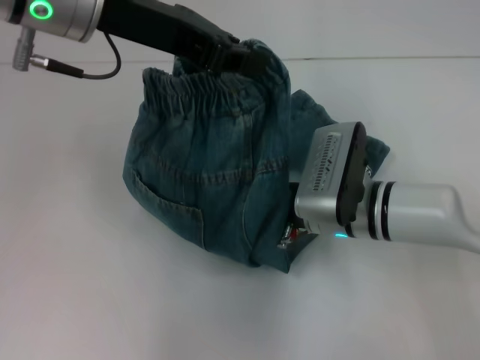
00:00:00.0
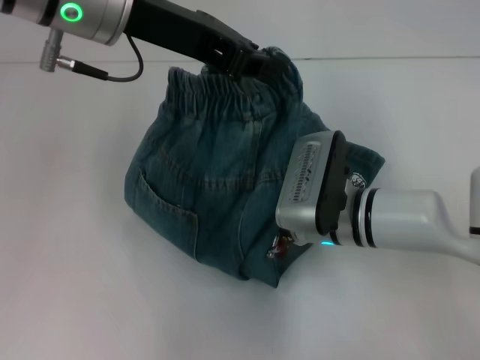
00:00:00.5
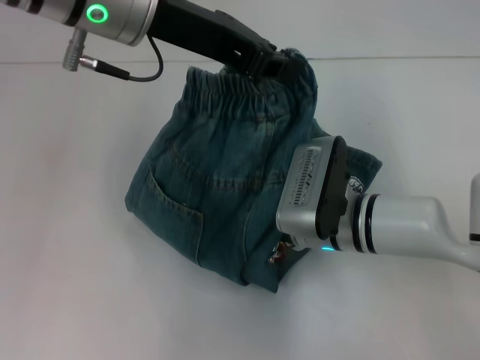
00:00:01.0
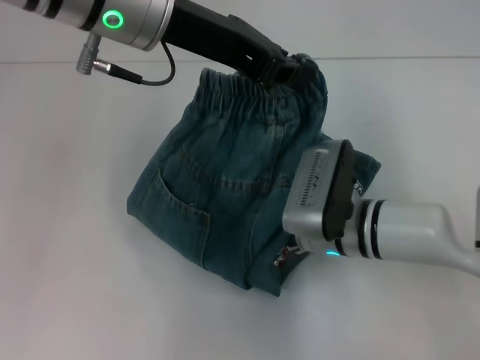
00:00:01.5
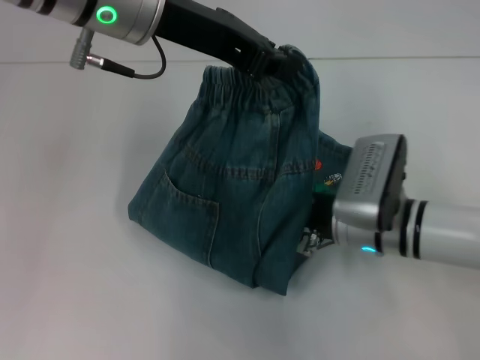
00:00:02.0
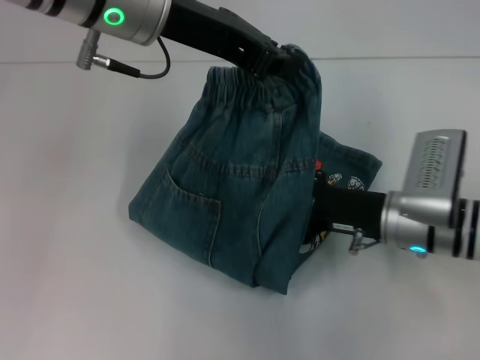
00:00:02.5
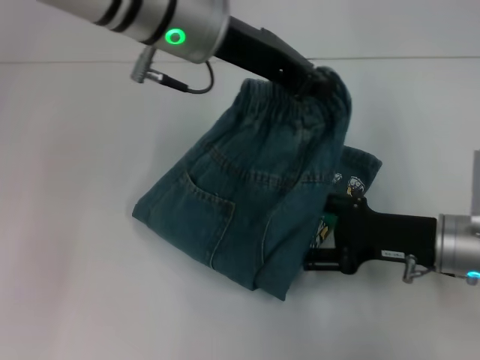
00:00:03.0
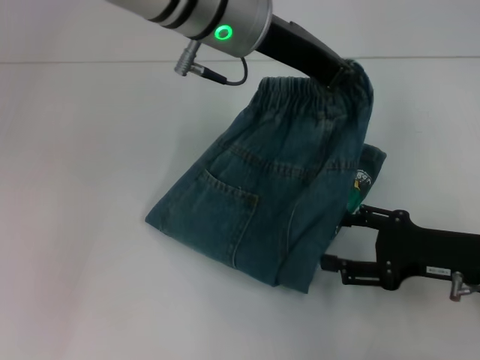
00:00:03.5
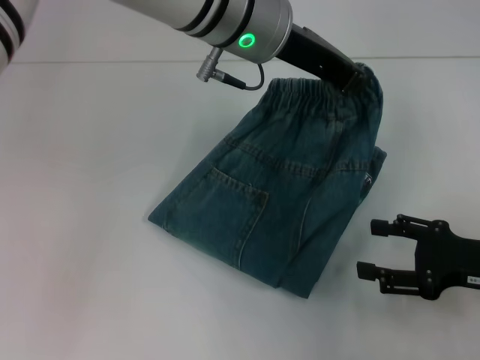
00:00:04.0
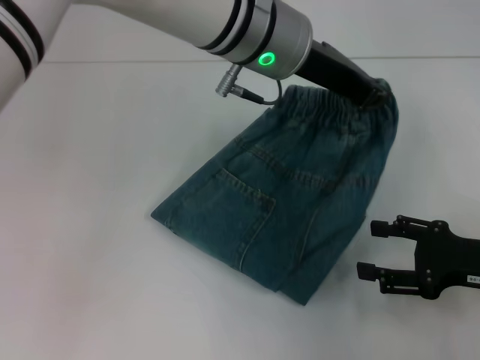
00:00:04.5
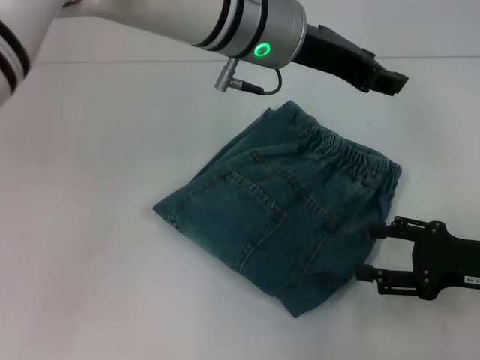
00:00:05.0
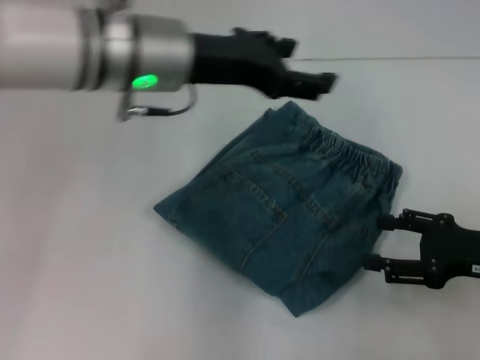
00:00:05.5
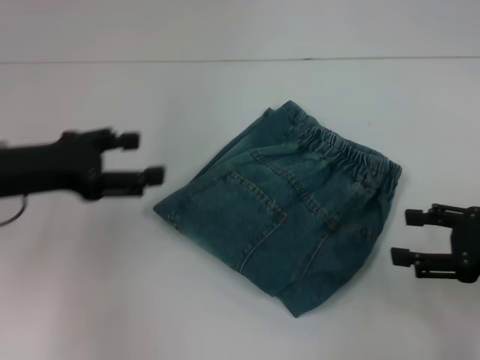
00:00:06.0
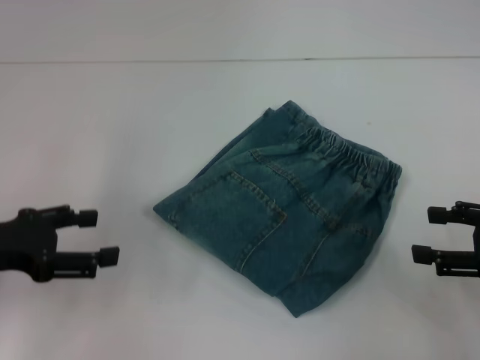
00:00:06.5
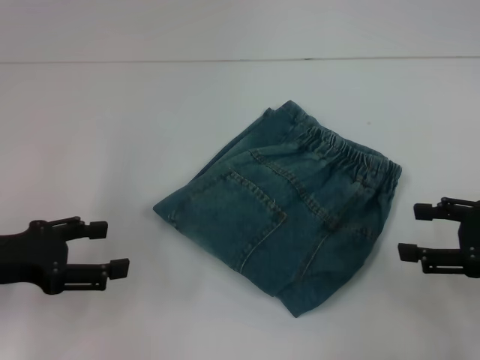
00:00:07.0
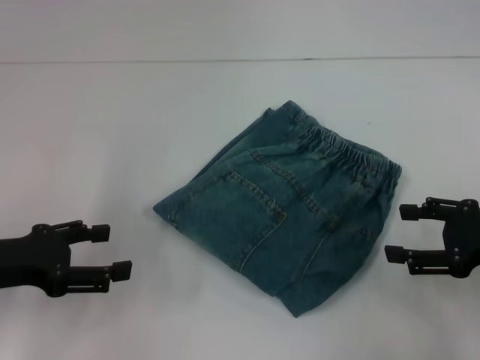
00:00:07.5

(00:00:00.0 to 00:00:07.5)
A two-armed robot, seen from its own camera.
Step, 00:00:00.0 - 00:00:02.0: Press the middle of the pants with your right hand.
Step, 00:00:02.5 - 00:00:04.5: Fold to the right with your left hand.
00:00:02.0 - 00:00:04.0: The left gripper is displaced to the right by roughly 10 cm, while the right gripper travels to the right and backward by approximately 20 cm.
00:00:04.0 - 00:00:05.5: The left gripper goes about 10 cm to the left, and opens up.
00:00:05.5 - 00:00:07.5: The left gripper heads to the left, backward and downward, covering approximately 25 cm.

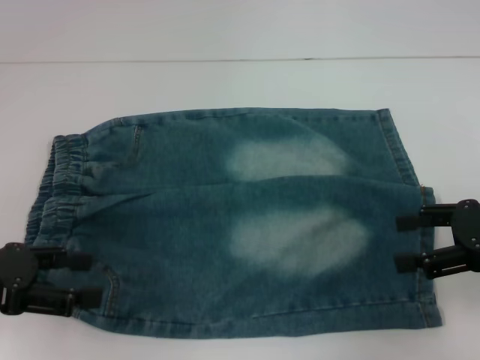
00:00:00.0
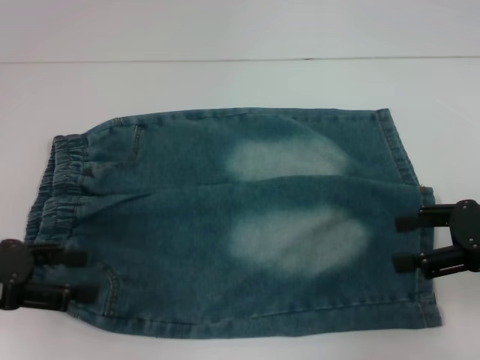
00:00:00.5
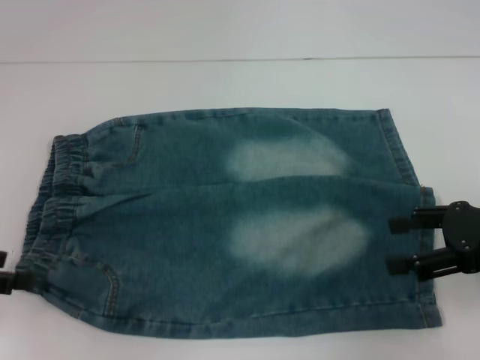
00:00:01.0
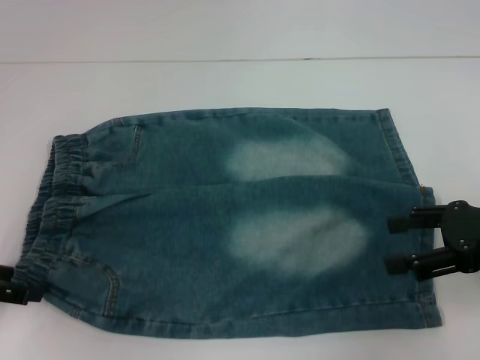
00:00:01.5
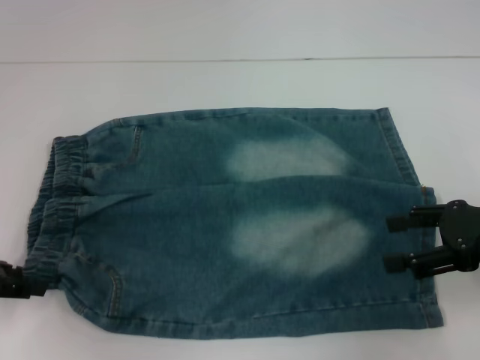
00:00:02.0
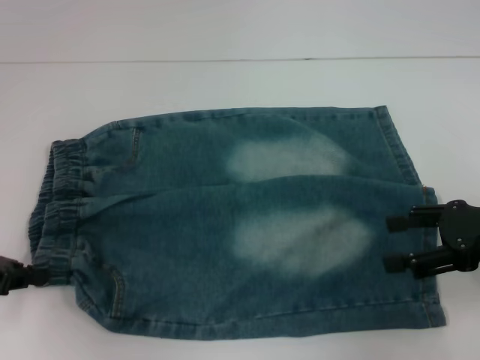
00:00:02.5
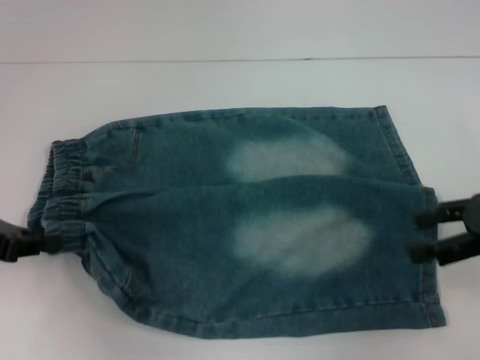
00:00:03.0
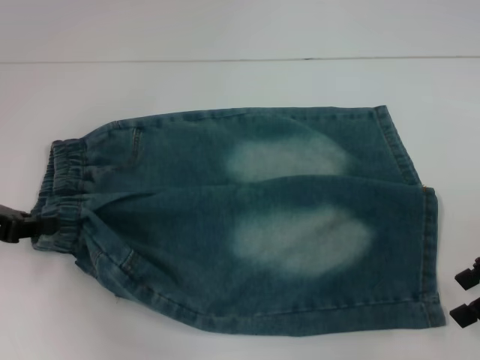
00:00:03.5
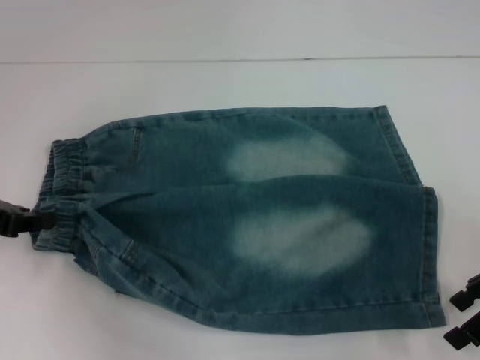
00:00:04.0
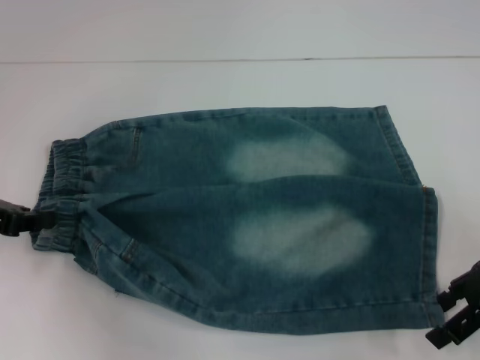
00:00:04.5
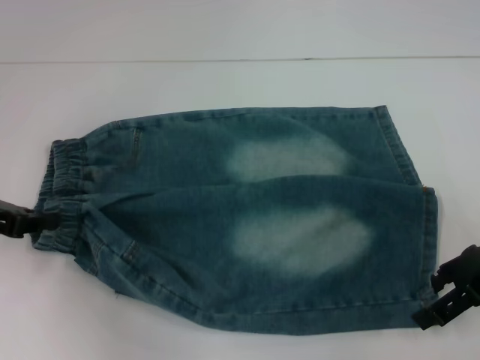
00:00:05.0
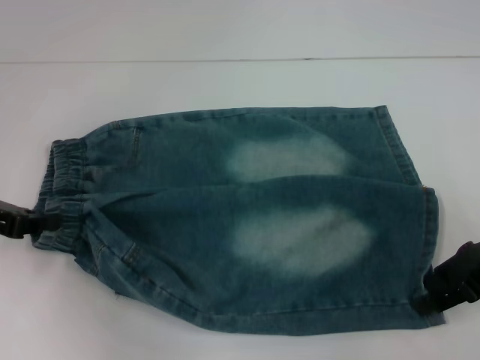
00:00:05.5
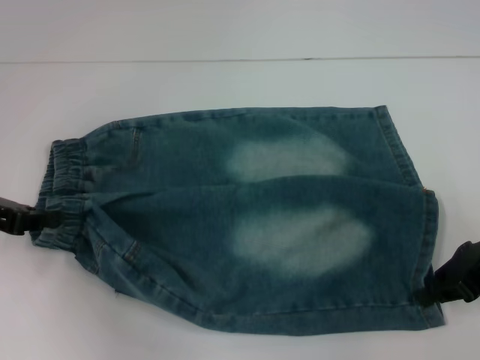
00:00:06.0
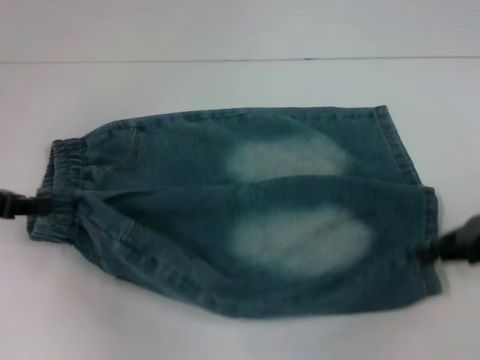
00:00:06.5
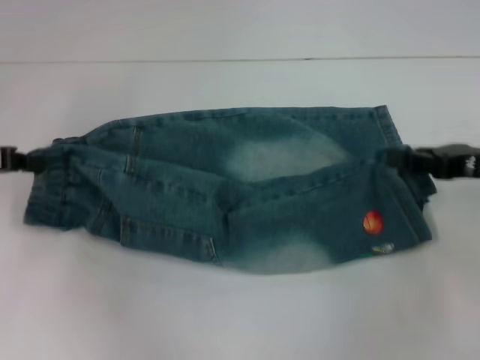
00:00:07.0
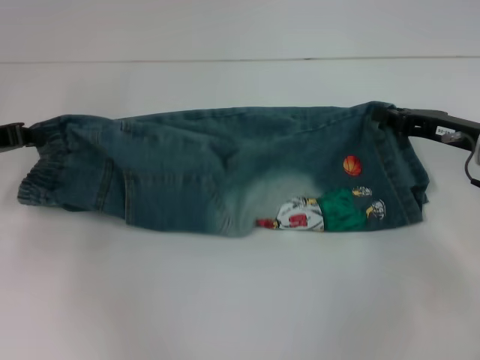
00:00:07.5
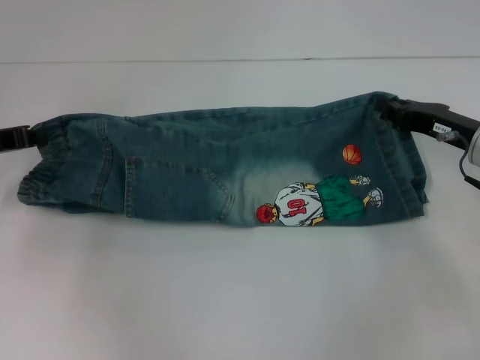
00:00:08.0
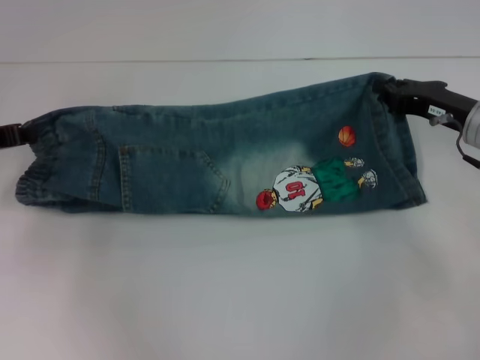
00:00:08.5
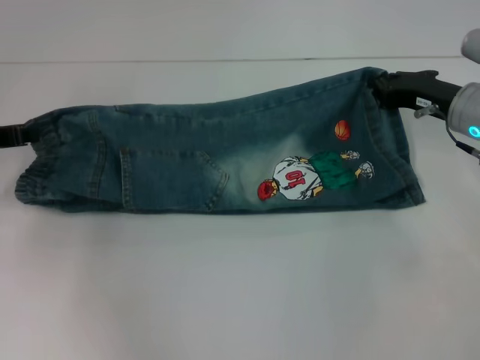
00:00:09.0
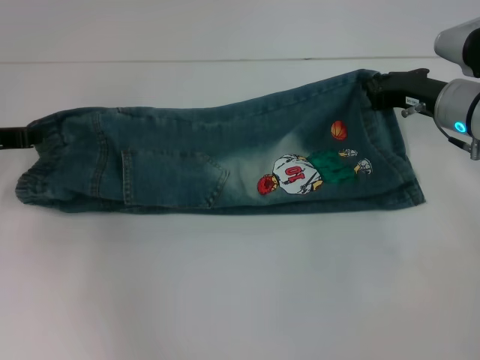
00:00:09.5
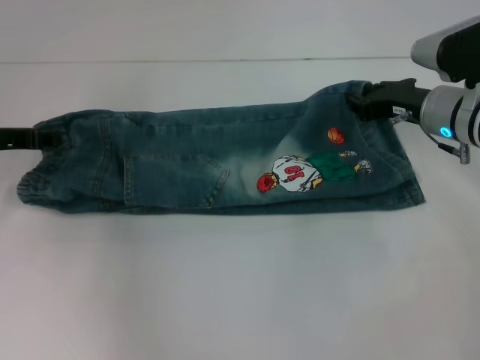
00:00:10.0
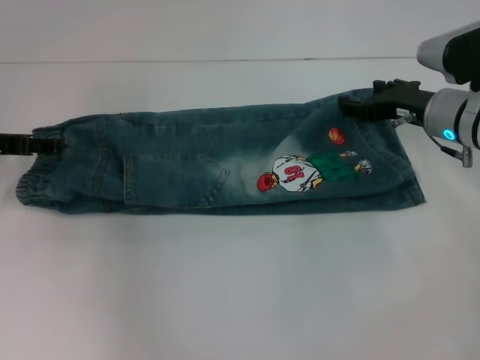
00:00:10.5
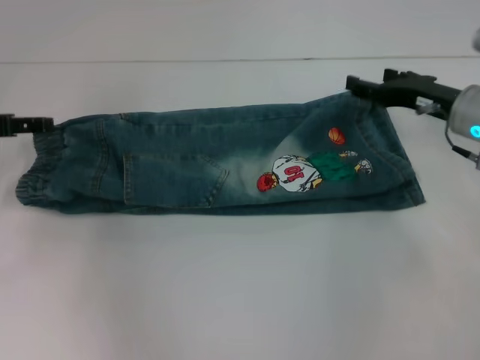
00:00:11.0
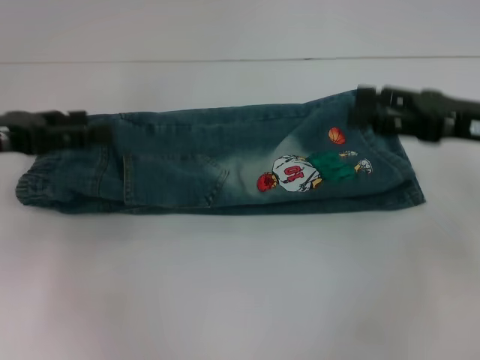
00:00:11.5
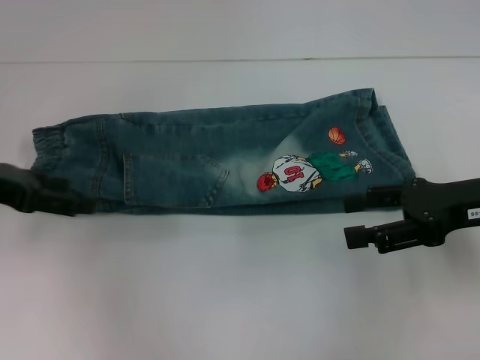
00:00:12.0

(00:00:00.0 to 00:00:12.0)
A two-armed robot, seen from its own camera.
Step, 00:00:00.0 - 00:00:02.5: Hold the lower left waistband with your left hand.
Step, 00:00:03.0 - 00:00:06.0: Grab the lower right pant leg with your right hand.
Step, 00:00:06.5 - 00:00:11.0: Fold upward with your right hand.
00:00:02.0 - 00:00:04.0: The left gripper closes up.
00:00:04.0 - 00:00:06.0: The right gripper closes up.
00:00:06.0 - 00:00:08.0: The right gripper changes place by about 5 cm, while the left gripper shifts by about 5 cm.
00:00:08.0 - 00:00:10.0: The right gripper travels forward by some 5 cm.
00:00:10.0 - 00:00:12.0: The left gripper moves approximately 5 cm, and opens its fingers. The right gripper goes some 10 cm backward, and opens.

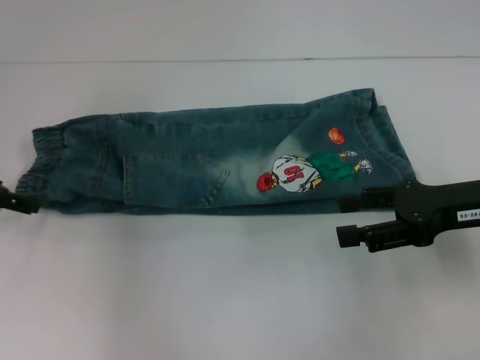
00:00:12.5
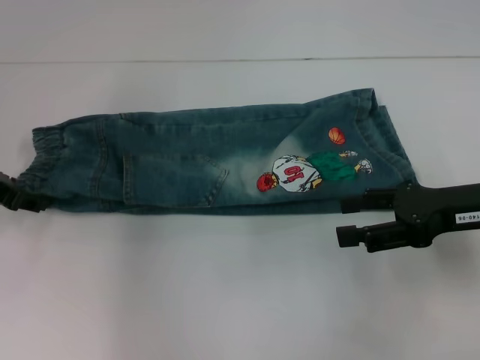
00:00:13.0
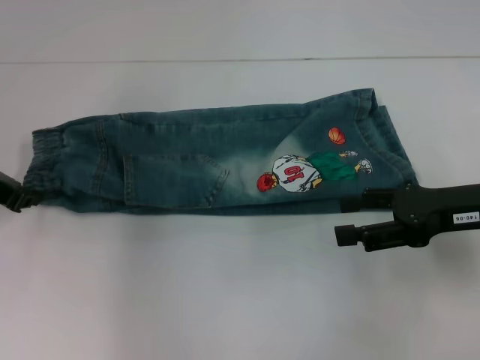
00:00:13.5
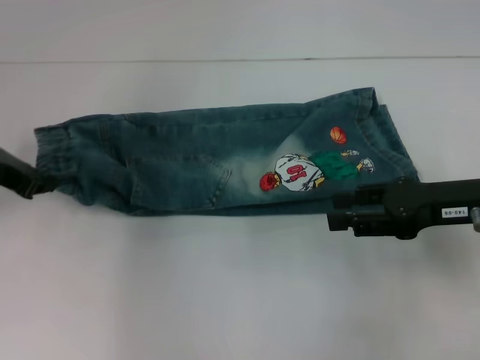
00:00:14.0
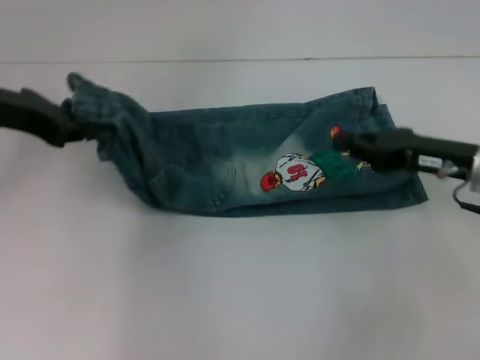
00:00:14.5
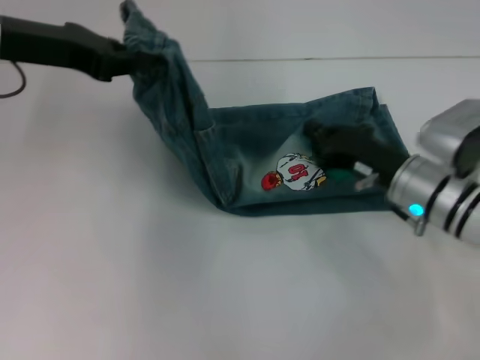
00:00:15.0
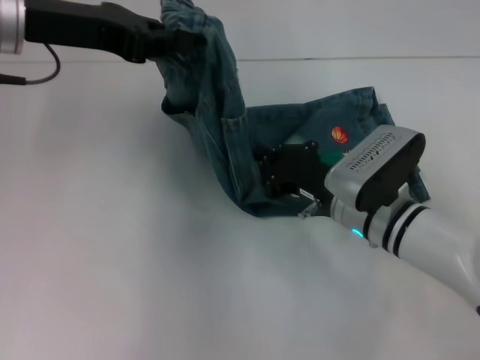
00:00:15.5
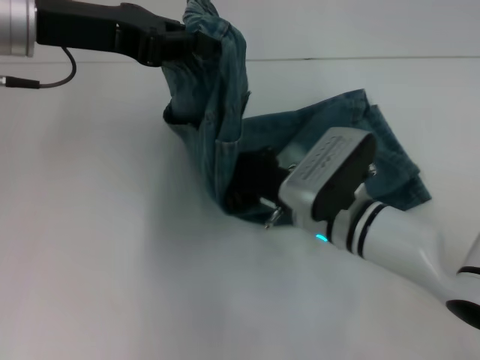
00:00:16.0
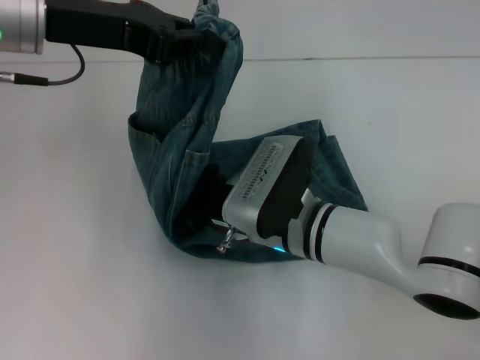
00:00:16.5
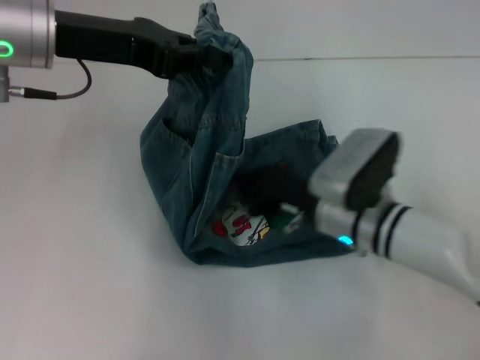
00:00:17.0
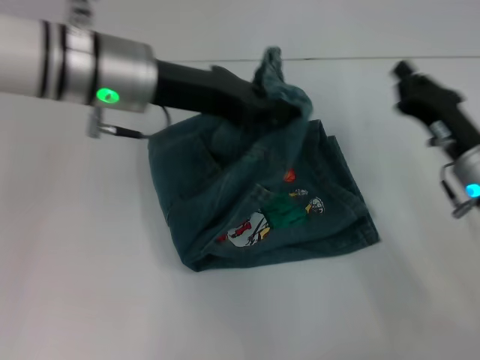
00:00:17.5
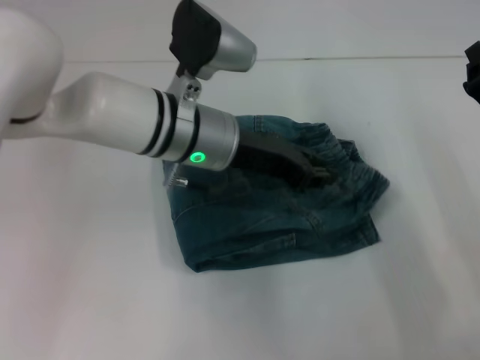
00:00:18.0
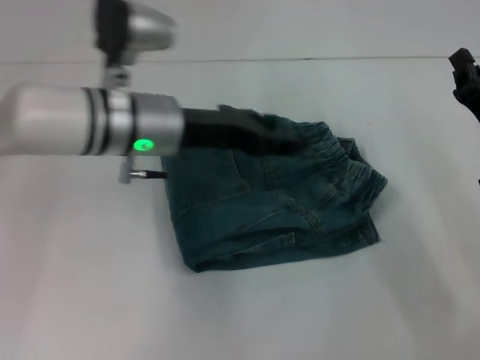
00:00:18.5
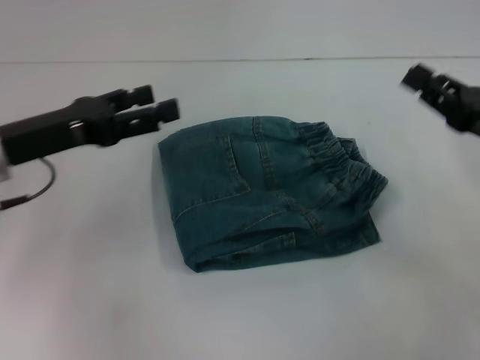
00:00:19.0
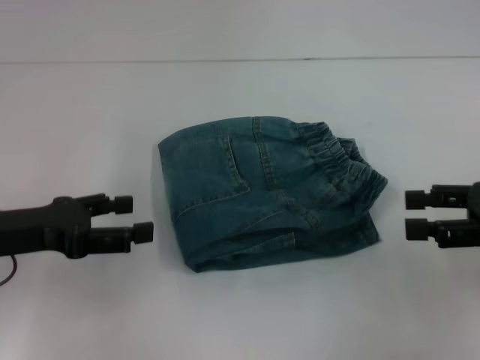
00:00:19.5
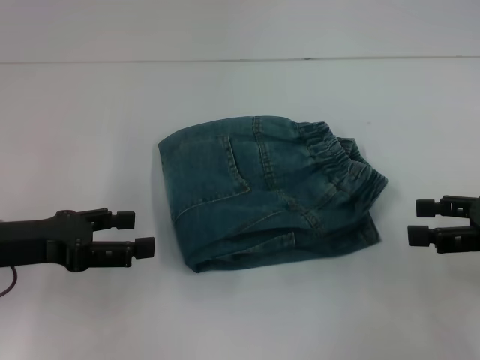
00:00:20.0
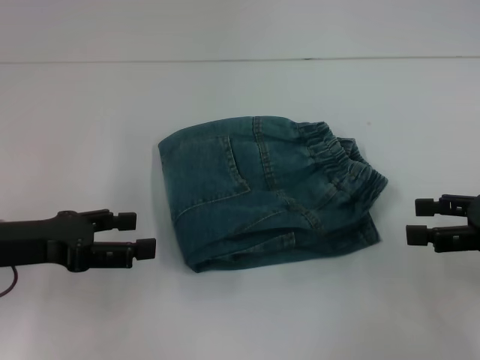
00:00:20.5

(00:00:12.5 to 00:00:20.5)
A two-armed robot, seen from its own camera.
Step, 00:00:14.0 - 00:00:16.5: Press the middle of the pants with your right hand.
Step, 00:00:17.0 - 00:00:18.5: Fold to the right with your left hand.
00:00:12.5 - 00:00:14.5: The right gripper closes; the left gripper goes approximately 10 cm upward and to the right, and closes.
00:00:14.5 - 00:00:16.5: The right gripper goes roughly 20 cm to the left, while the left gripper moves to the right, some 10 cm.
00:00:16.5 - 00:00:18.5: The right gripper goes about 25 cm to the right. Meanwhile the left gripper goes roughly 15 cm downward and to the right, and opens up.
00:00:18.5 - 00:00:20.5: The left gripper goes some 20 cm to the left and backward, and opens, while the right gripper moves to the right and upward, approximately 10 cm, and opens.
